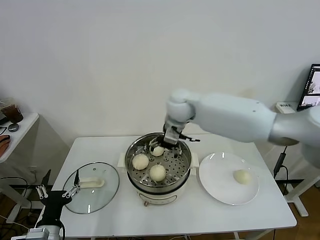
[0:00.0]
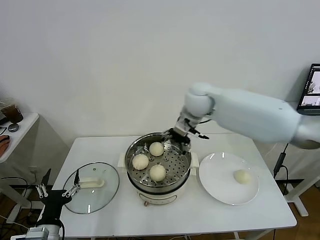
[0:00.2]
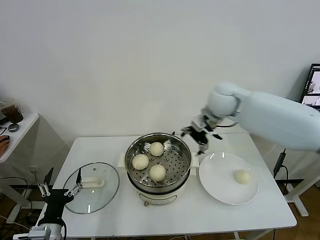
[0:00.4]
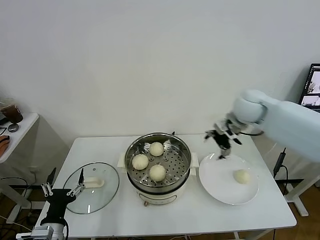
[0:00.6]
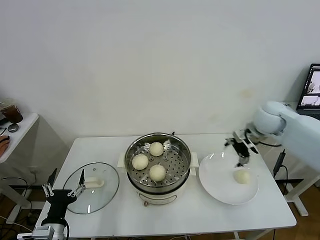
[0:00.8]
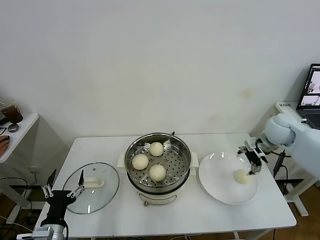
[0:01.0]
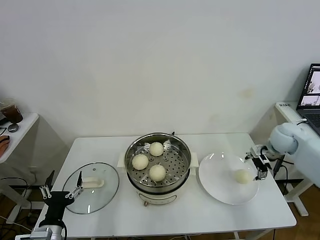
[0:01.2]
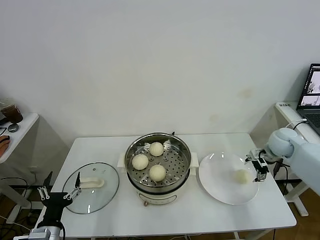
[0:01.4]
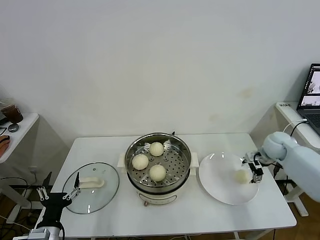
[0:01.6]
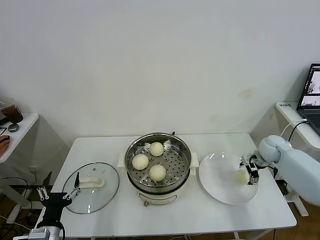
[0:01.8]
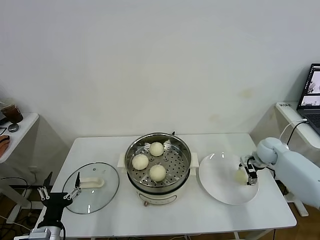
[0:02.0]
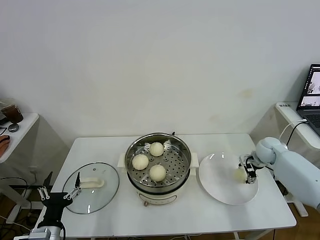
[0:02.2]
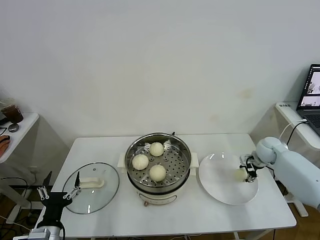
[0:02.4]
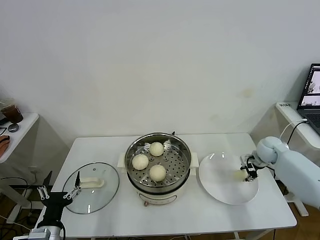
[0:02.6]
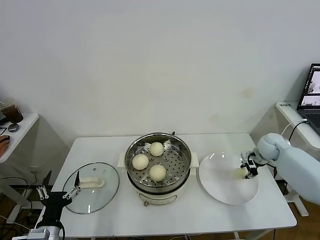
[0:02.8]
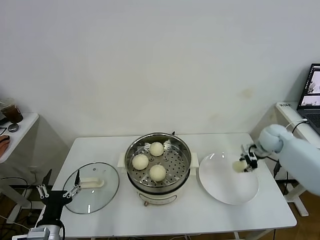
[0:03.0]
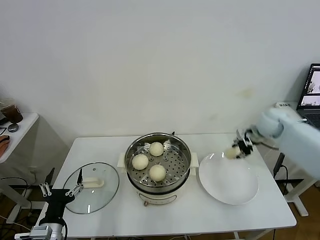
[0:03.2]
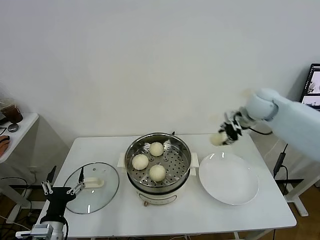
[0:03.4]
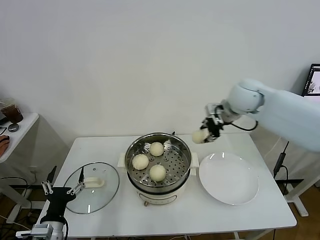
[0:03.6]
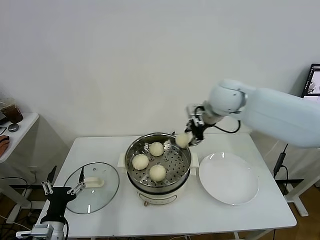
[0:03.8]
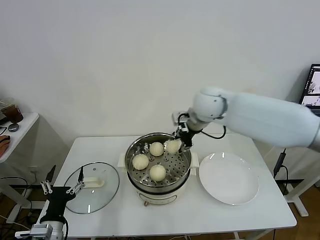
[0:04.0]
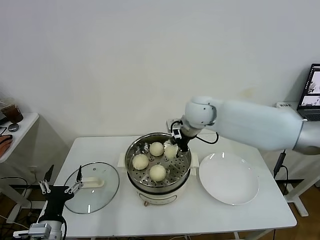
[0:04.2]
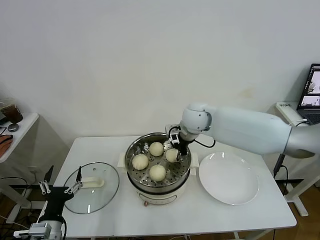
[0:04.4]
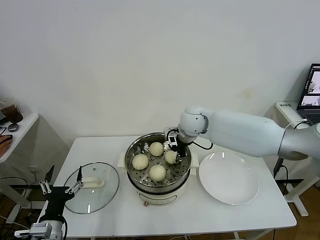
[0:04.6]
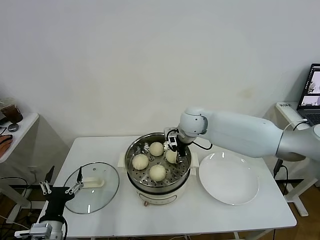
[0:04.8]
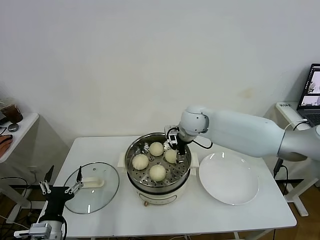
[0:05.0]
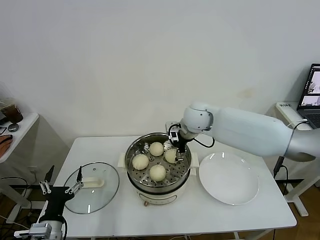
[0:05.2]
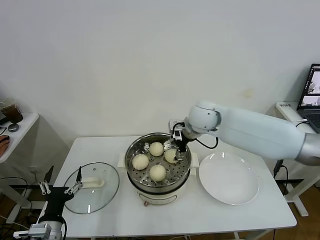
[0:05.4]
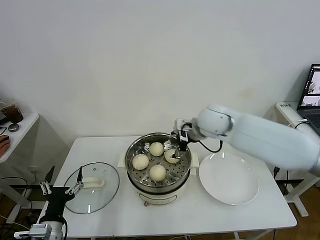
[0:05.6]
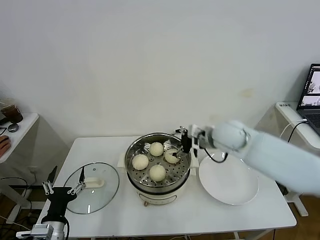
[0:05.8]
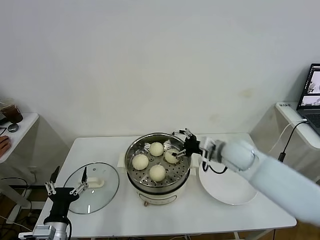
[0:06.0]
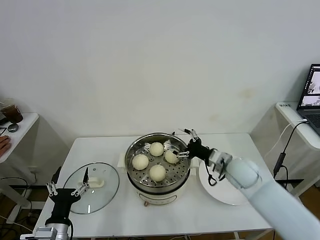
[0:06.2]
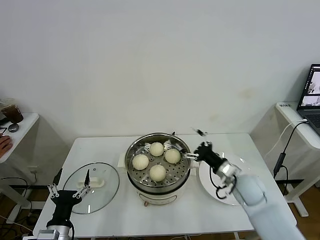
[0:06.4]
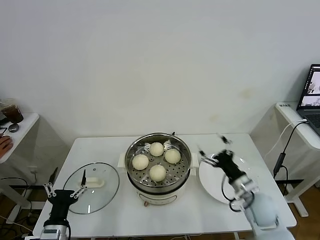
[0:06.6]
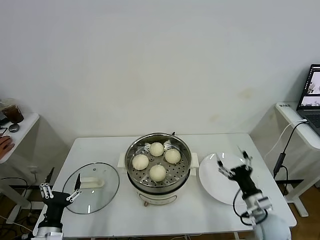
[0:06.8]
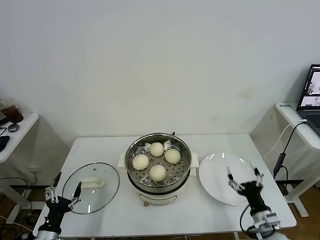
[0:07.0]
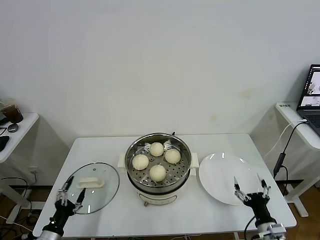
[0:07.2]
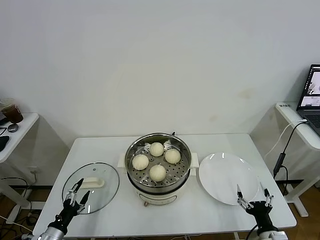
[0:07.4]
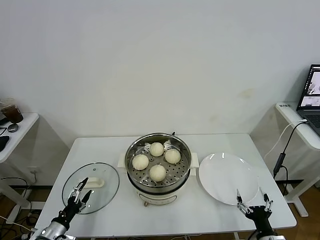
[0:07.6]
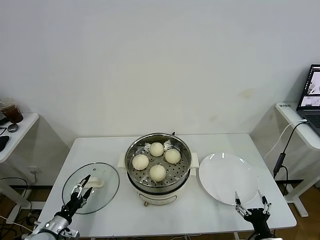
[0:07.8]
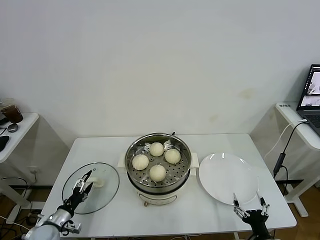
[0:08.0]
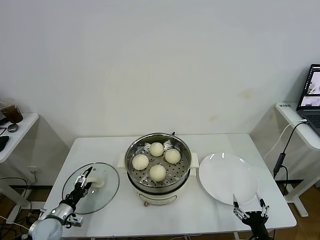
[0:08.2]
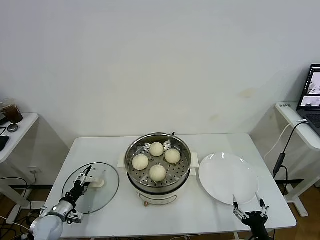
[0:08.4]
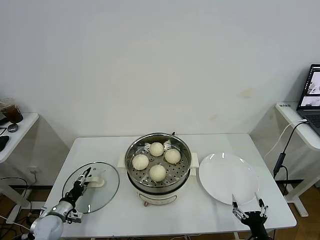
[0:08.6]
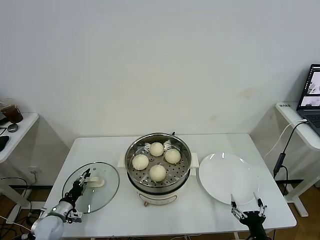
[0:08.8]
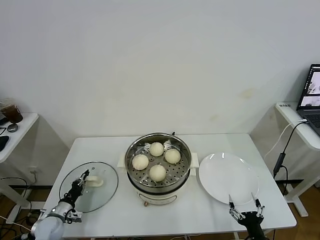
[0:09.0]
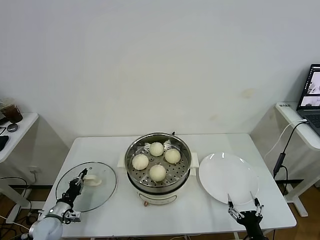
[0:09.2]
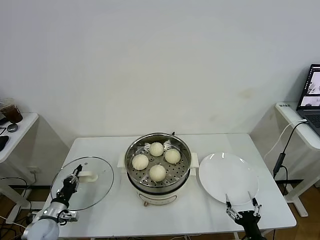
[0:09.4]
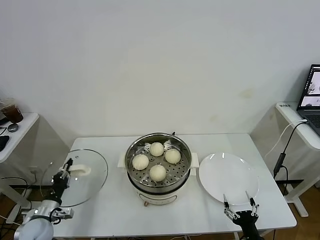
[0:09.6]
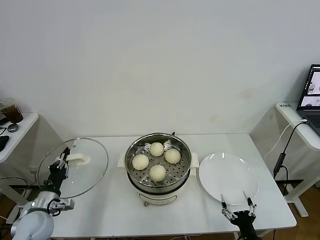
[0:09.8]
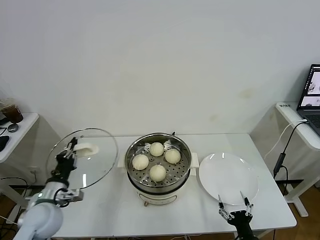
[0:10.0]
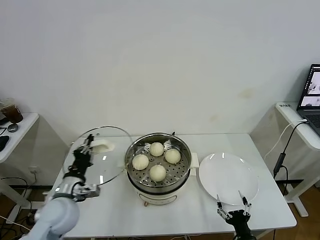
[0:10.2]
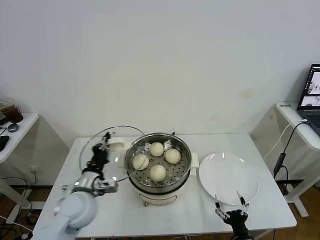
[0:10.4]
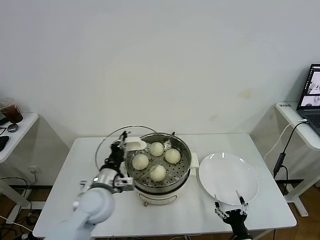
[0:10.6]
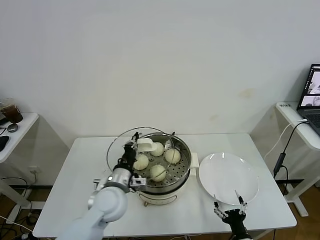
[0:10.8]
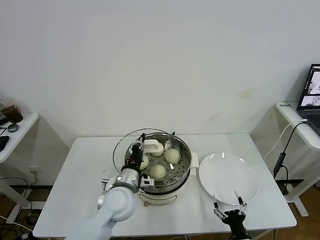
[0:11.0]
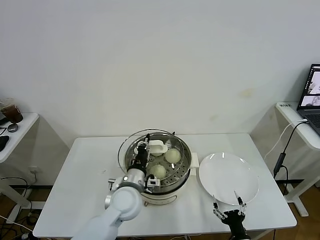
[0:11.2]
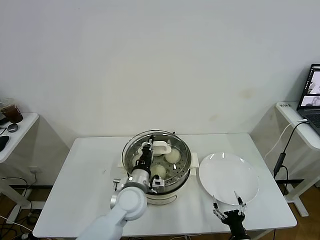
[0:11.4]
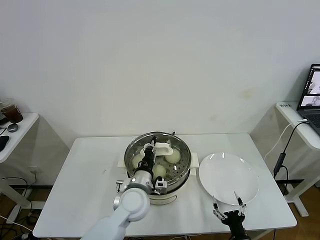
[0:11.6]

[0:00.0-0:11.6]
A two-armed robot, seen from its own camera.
Task of the whole recording: take steamed baozi put them in steamer.
Step, 0:00.0 to 0:02.6: Grasp the baozi in the plate with right gripper.
Step, 0:02.8 to 0:05.4: Place the baozi on the steamer with right gripper.
Step, 0:05.6 to 0:09.0: Grasp the pot lid with left gripper.
0:00.0 to 0:01.4: The right gripper goes some 40 cm to the right.
0:01.4 to 0:02.8: The right gripper goes about 5 cm downward, and closes up.
0:02.8 to 0:04.4: The right gripper is displaced to the left and upward by approximately 35 cm.
0:04.4 to 0:05.8: The right gripper shifts roughly 10 cm to the right and backward, and opens up.
0:05.8 to 0:07.2: The right gripper travels backward, downward and to the right by roughly 40 cm. The left gripper travels downward and to the left by approximately 10 cm.
0:07.2 to 0:08.8: The right gripper is displaced backward by approximately 5 cm. The left gripper is displaced forward and downward by about 15 cm, and closes up.
0:08.8 to 0:10.2: The left gripper travels upward and to the right by approximately 25 cm, and closes.
0:10.2 to 0:11.6: The left gripper shifts about 20 cm to the right.

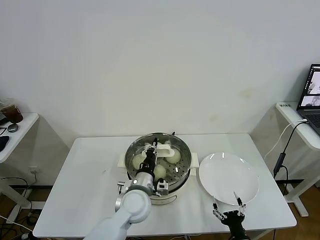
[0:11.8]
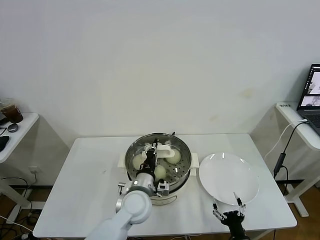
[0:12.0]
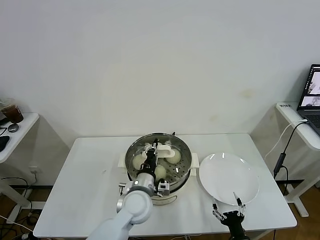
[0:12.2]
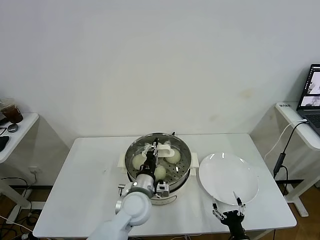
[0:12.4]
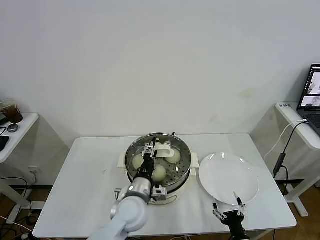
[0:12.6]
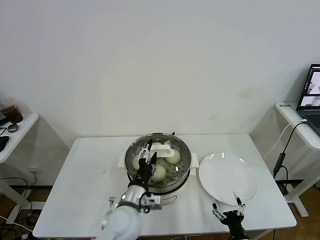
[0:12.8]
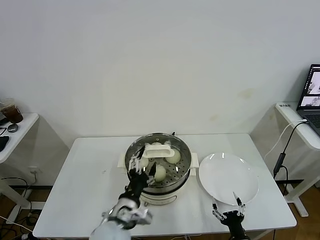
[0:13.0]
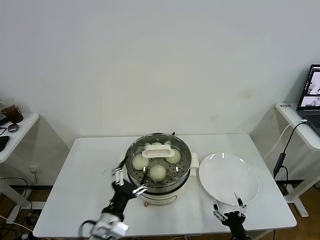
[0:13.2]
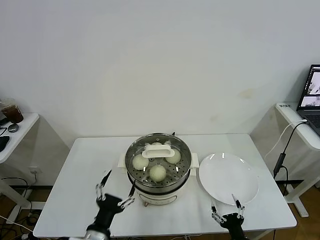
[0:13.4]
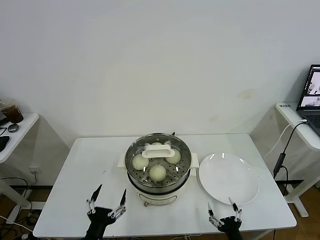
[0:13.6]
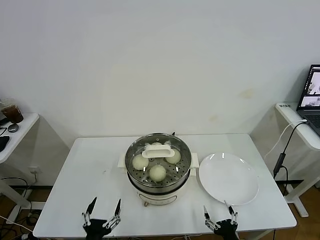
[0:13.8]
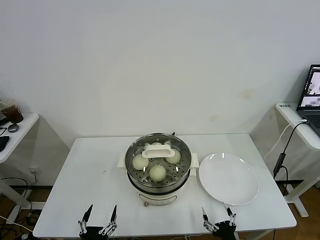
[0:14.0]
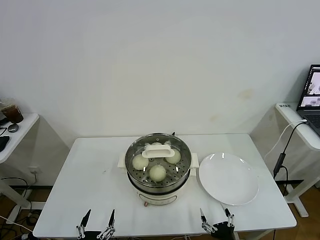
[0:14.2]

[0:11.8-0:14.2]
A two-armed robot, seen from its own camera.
Task of the whole recording: take steamed baozi put them in steamer.
0:11.8 to 0:13.0: The left gripper heads backward, covering roughly 10 cm, and opens its fingers.
0:13.0 to 0:14.2: The left gripper goes some 25 cm backward, to the left and downward.
